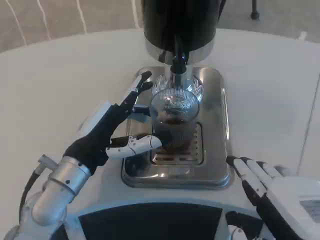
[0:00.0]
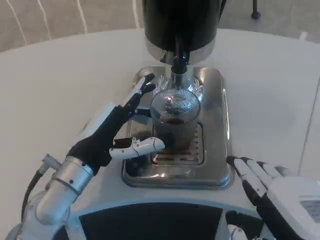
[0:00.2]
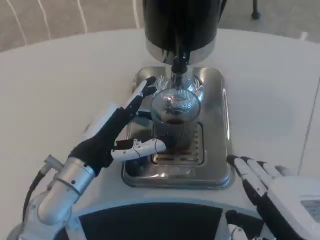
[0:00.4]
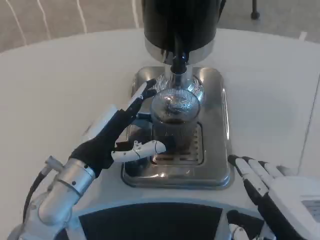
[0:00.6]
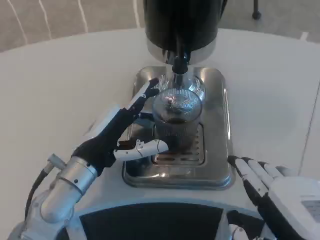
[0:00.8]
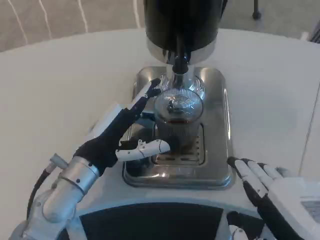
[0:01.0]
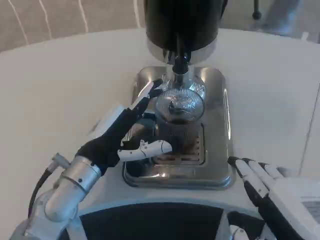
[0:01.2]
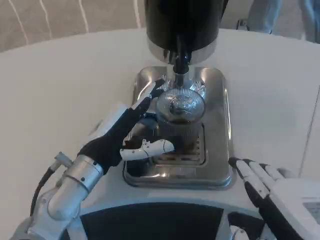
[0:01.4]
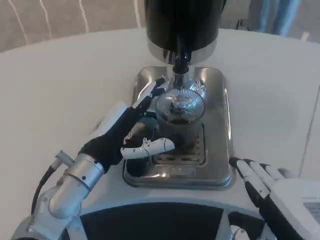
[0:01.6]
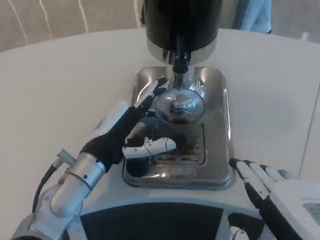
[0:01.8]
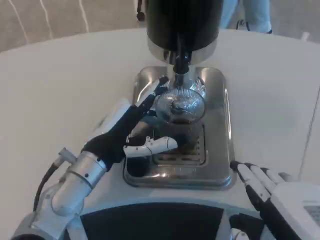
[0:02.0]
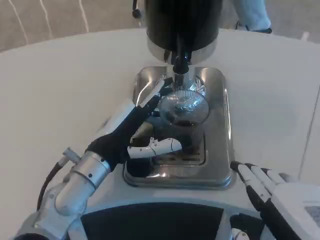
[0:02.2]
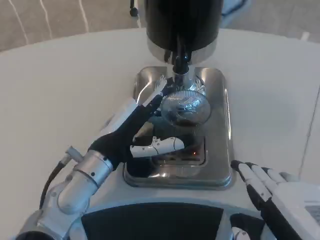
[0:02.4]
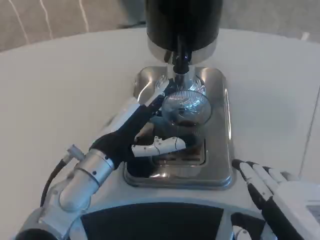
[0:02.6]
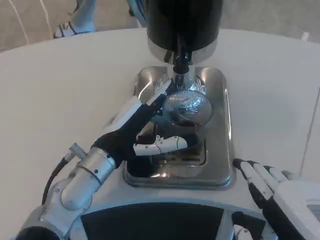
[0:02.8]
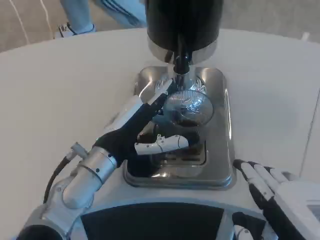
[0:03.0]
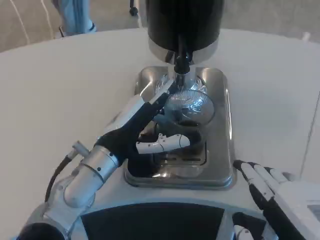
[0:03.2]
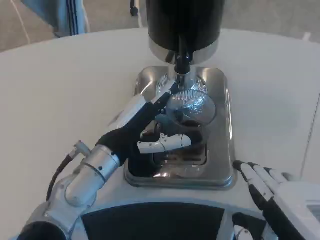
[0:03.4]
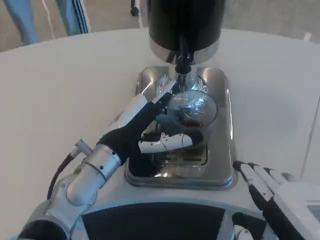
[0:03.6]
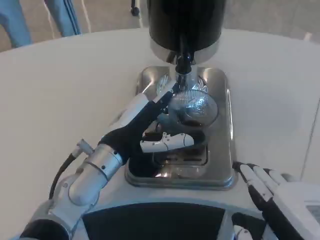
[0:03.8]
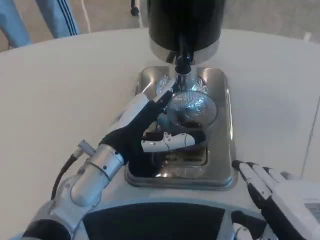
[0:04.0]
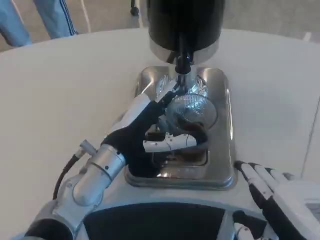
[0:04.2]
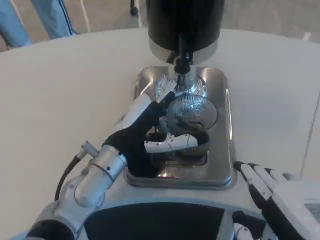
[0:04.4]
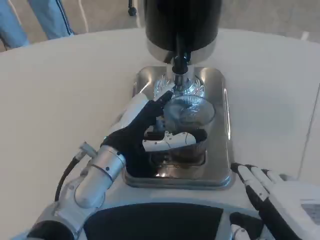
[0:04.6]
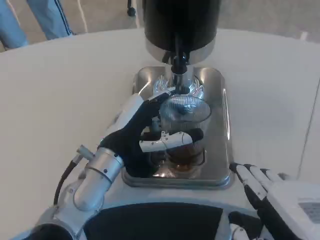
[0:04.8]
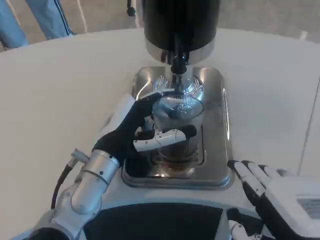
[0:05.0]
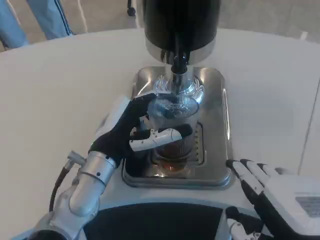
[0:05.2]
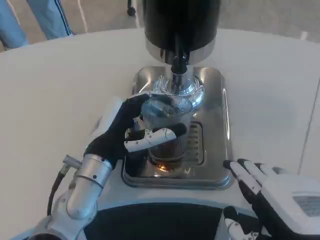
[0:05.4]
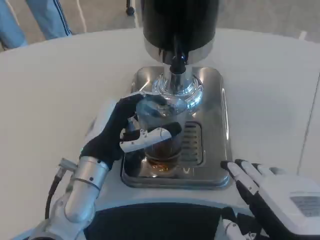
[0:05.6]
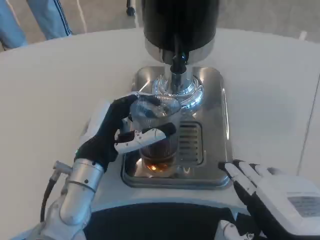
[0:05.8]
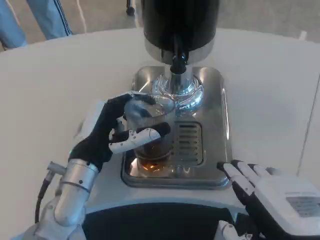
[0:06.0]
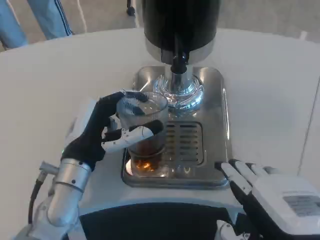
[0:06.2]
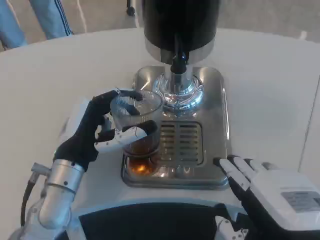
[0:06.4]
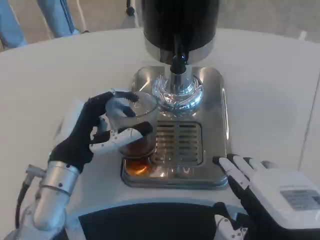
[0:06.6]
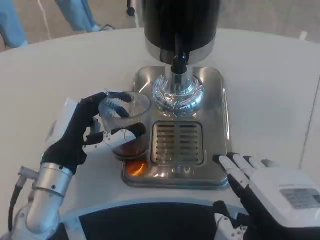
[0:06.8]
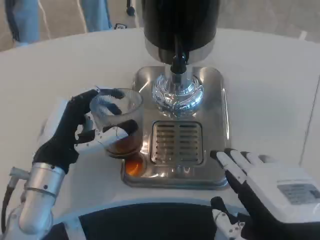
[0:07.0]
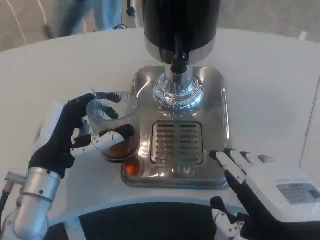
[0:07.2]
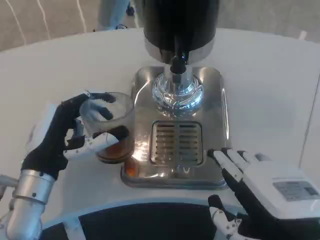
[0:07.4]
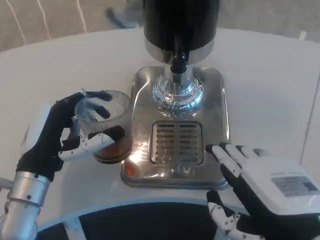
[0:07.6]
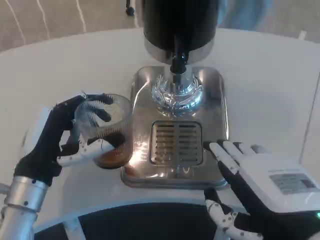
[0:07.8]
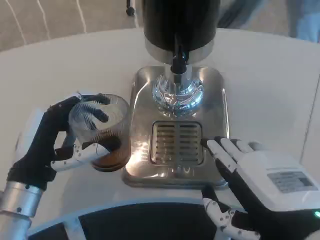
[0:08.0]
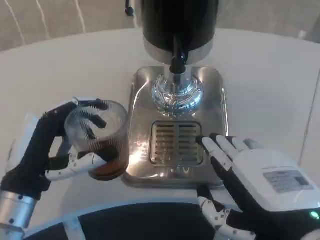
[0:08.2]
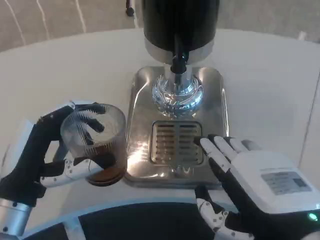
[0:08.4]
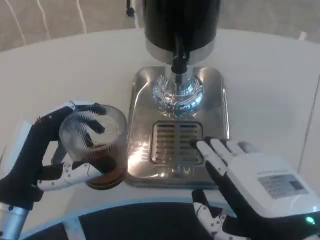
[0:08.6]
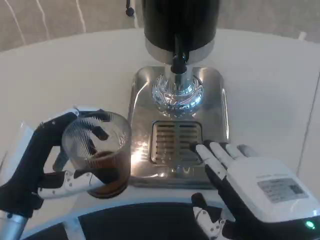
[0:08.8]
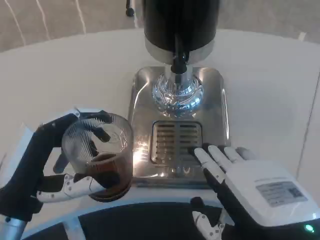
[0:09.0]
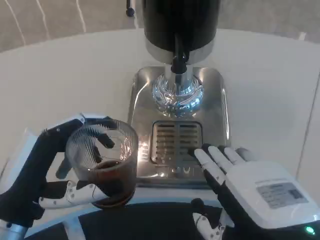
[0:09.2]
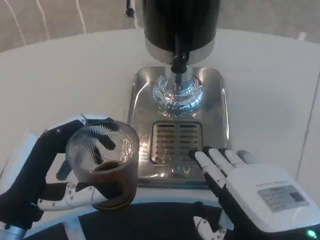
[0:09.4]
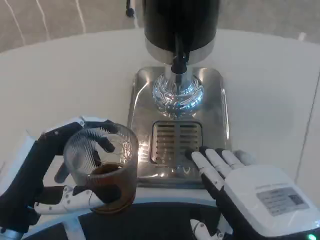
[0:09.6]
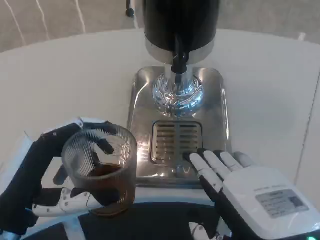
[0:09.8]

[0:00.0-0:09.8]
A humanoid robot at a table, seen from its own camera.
Task of the whole recording: Grasp the cup under the faucet to collect the drink, then remove the cup.
0:00.0 to 0:04.2: The hands make only small movements.
0:05.6 to 0:07.0: The left hand shifts approximately 5 cm to the left.
0:07.0 to 0:08.4: The left hand goes about 5 cm backward.

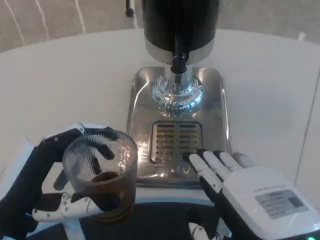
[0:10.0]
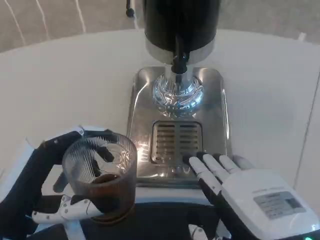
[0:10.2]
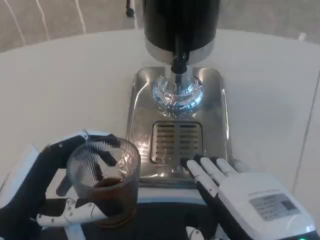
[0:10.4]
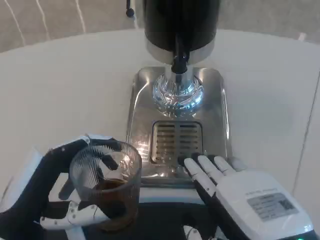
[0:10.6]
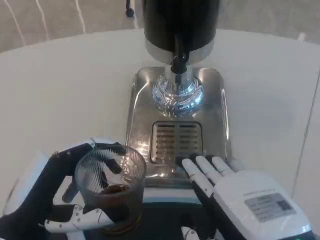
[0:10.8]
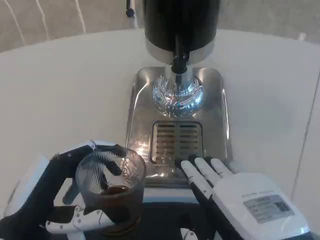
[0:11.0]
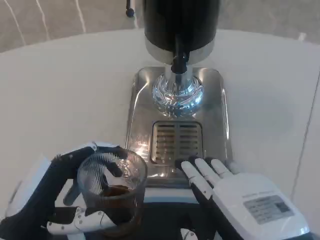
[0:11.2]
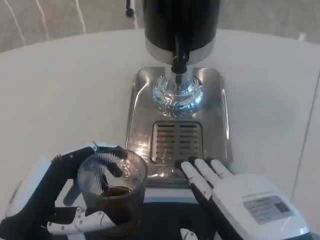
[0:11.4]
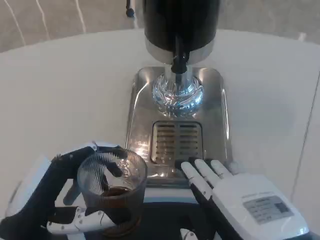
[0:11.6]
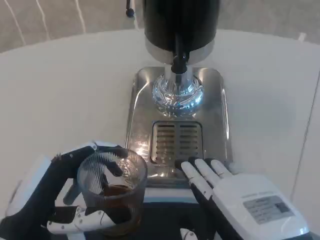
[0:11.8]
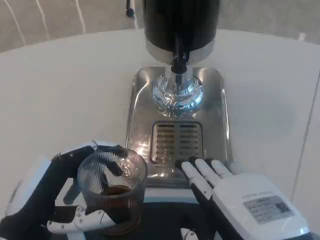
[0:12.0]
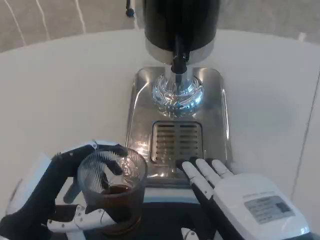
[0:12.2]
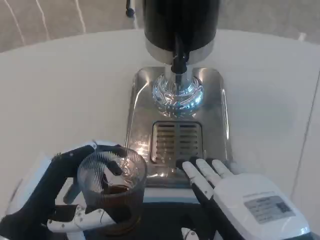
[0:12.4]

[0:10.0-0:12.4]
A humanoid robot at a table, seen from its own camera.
Task of the whole recording: Grasp the cup under the faucet to collect the drink, then remove the cup.
0:10.0 to 0:11.2: The hands move only a little.
0:11.2 to 0:12.4: The two hands keep their place.

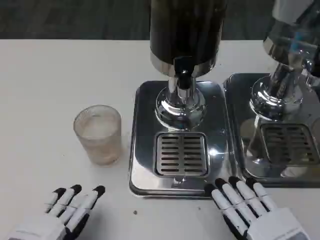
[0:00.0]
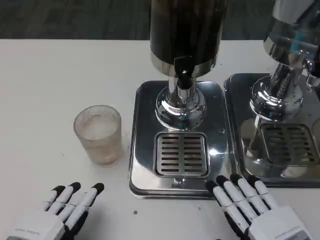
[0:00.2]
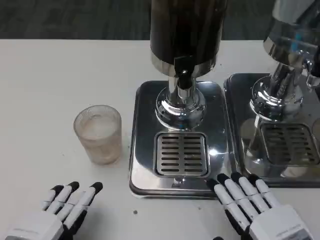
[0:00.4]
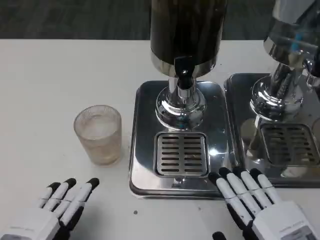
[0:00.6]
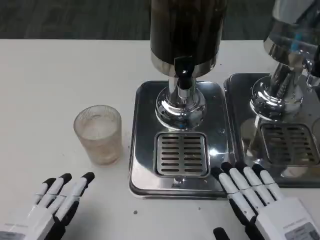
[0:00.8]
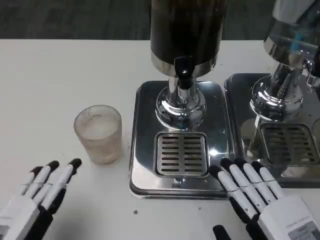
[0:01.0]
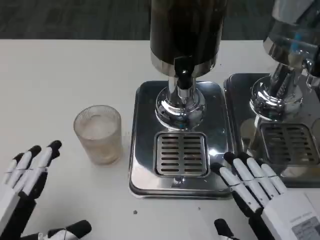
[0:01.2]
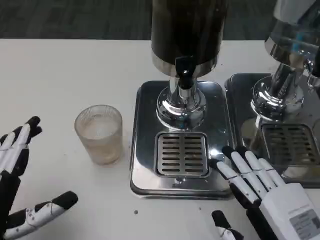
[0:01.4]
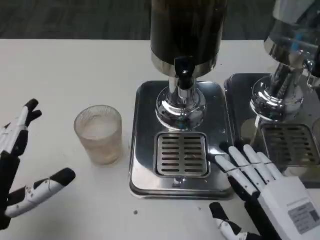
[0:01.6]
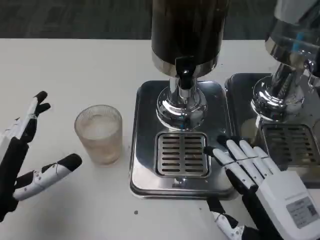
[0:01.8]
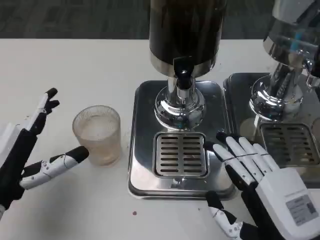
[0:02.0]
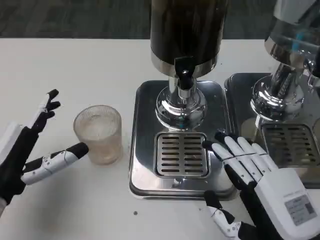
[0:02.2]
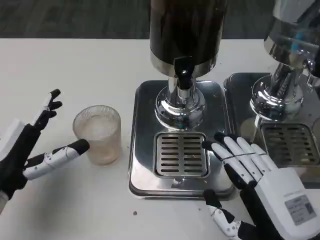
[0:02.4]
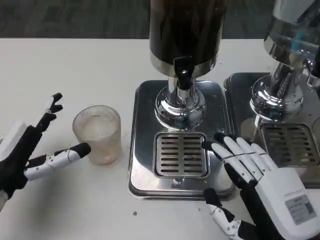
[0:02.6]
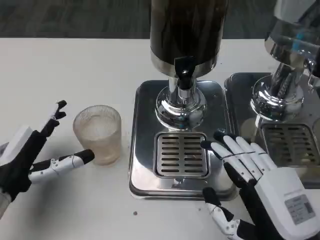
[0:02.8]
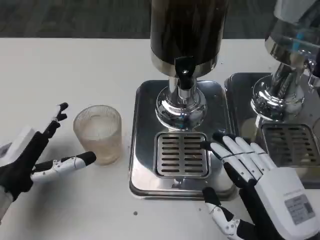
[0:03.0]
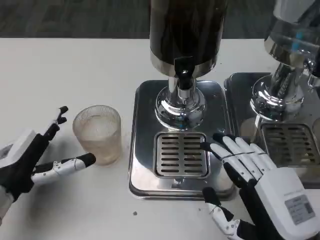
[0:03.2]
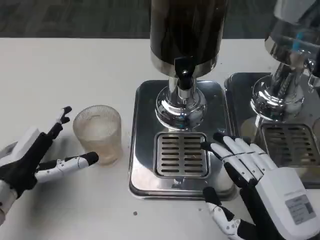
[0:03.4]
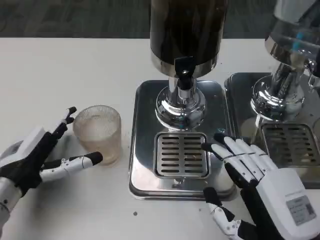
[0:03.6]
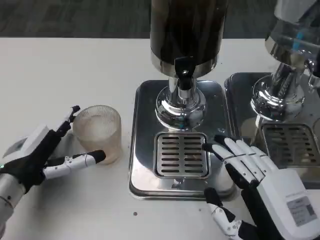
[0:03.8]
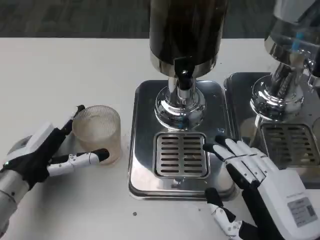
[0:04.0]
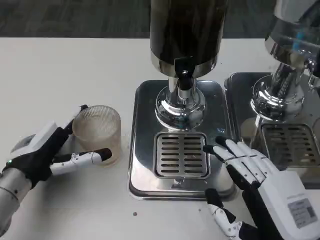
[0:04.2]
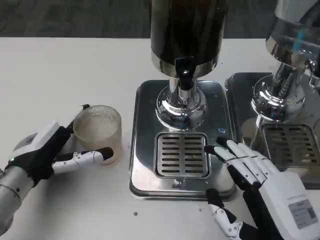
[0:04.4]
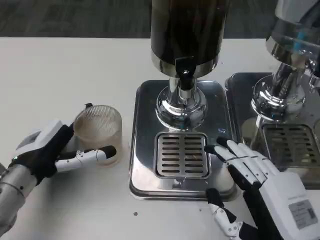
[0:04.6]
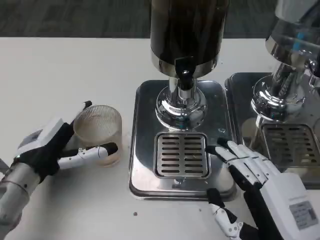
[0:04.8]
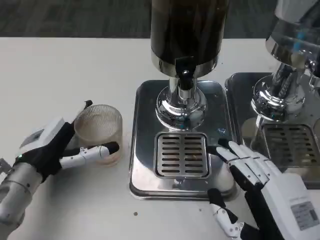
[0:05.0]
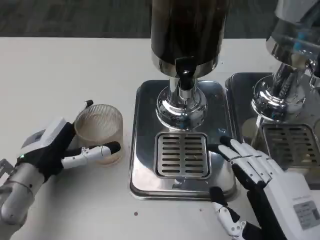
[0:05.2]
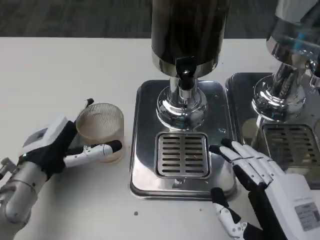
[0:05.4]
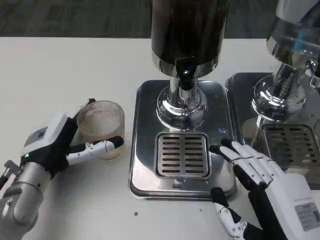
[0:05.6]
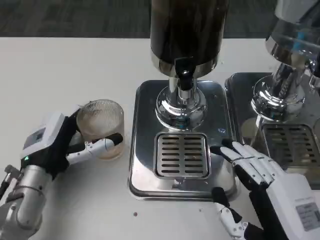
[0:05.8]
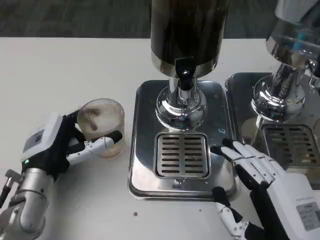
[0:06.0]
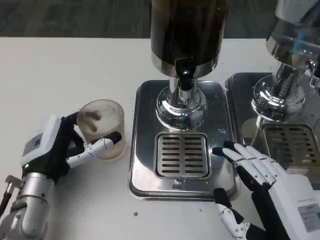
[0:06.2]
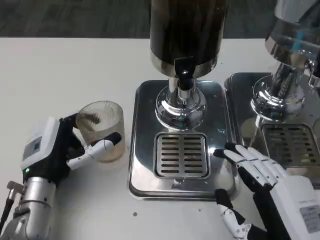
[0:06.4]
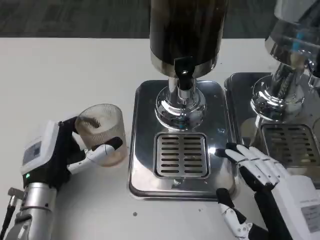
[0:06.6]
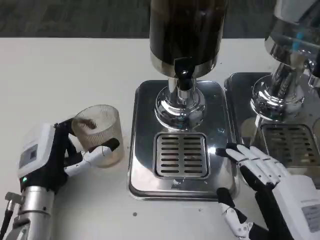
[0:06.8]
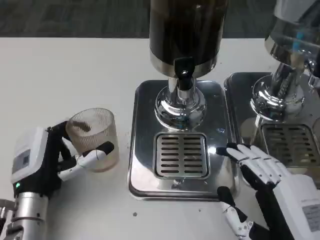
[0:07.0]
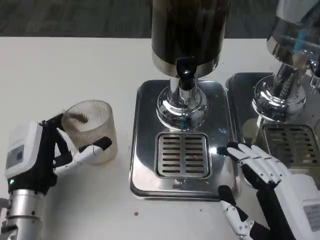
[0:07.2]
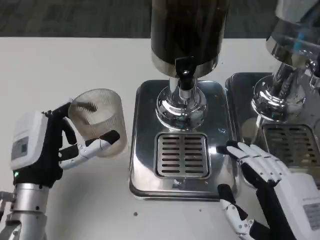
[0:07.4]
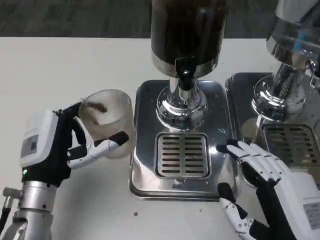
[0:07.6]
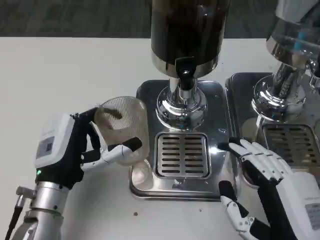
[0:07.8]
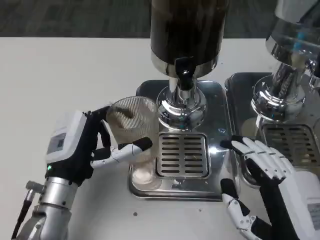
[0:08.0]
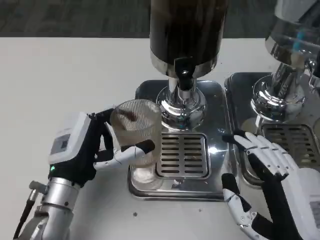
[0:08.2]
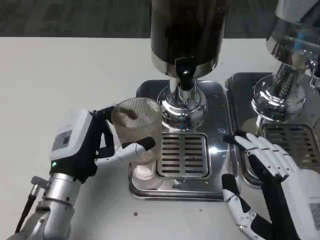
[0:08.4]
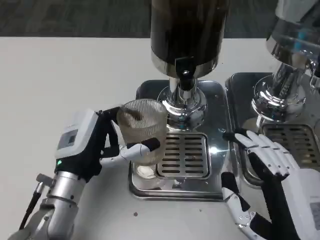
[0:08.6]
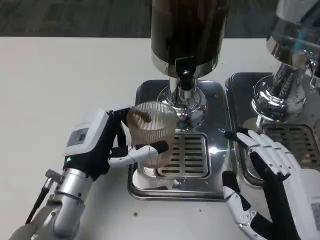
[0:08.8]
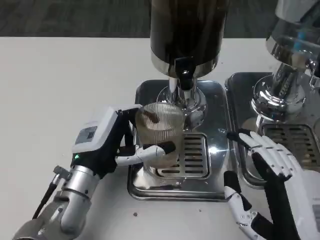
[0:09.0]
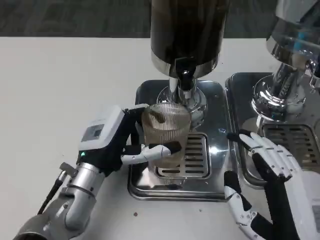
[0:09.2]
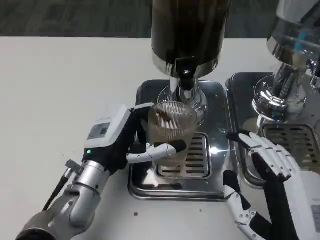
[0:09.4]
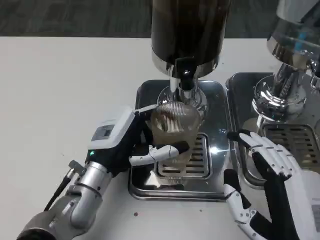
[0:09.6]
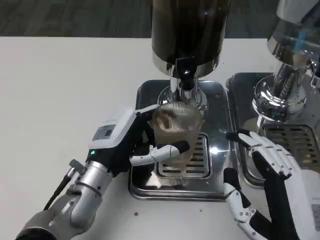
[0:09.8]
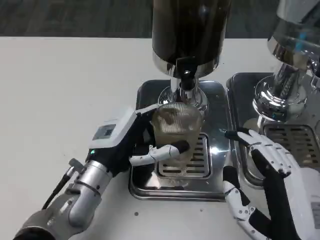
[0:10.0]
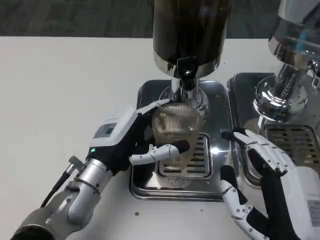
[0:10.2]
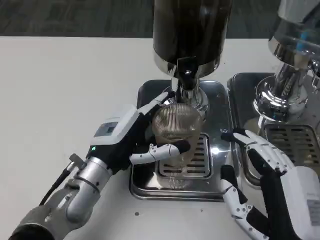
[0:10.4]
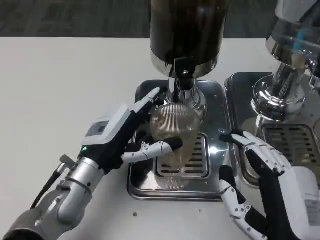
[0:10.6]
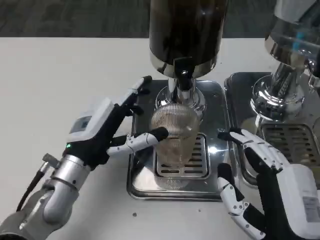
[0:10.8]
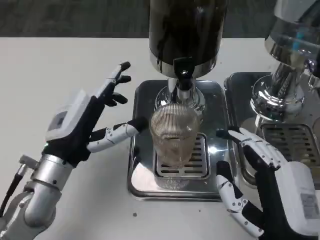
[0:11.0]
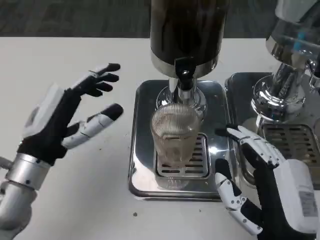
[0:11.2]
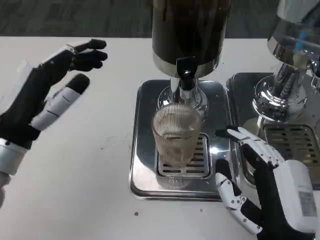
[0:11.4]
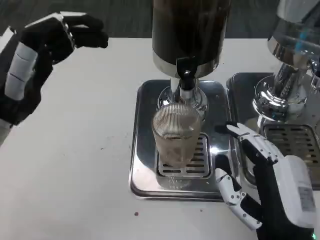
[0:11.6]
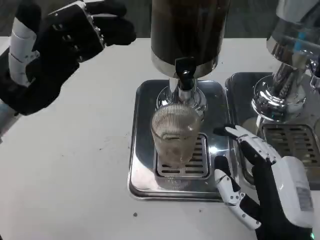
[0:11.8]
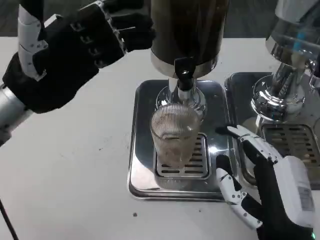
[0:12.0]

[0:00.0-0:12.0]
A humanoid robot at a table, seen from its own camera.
Task of the whole recording: Grasp the cup under the faucet to collect the drink, then remove the cup.
0:00.0 to 0:01.6: The left hand shifts about 5 cm forward.
0:01.6 to 0:03.0: The left hand goes roughly 5 cm forward.
0:03.0 to 0:04.4: The hands move only a little.
0:04.4 to 0:06.0: The hands stay close to where they were, moving slightly.
0:06.0 to 0:07.6: The hands stay close to where they were, moving slightly.
0:07.6 to 0:09.0: The left hand changes place by approximately 5 cm.
0:10.4 to 0:12.0: The left hand heads upward and to the left, covering approximately 15 cm.
